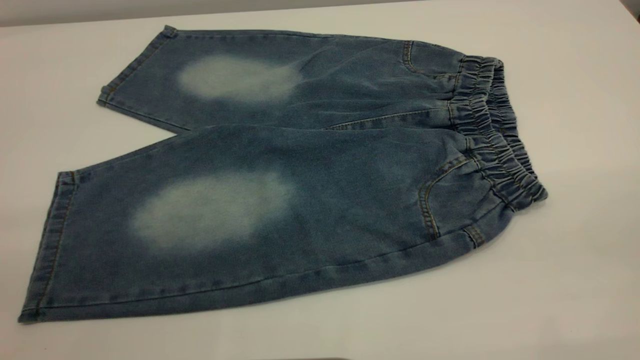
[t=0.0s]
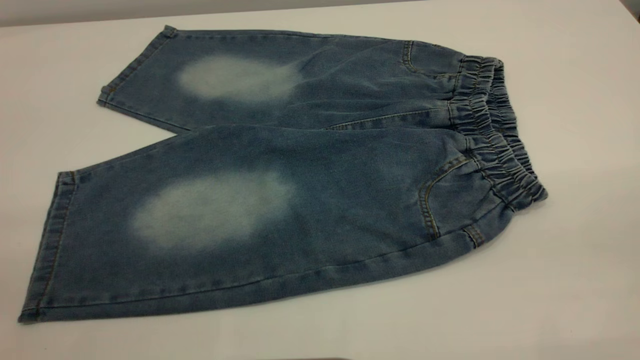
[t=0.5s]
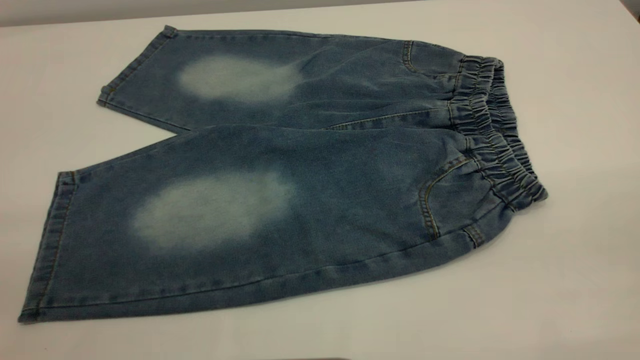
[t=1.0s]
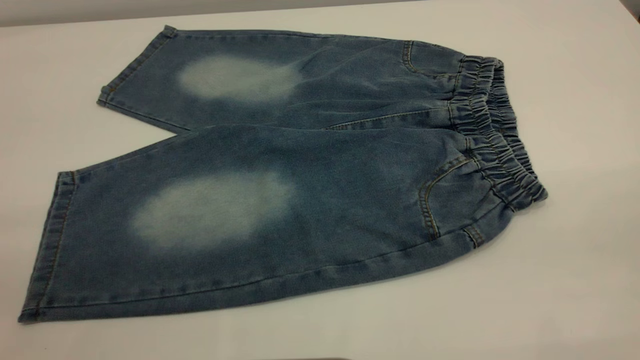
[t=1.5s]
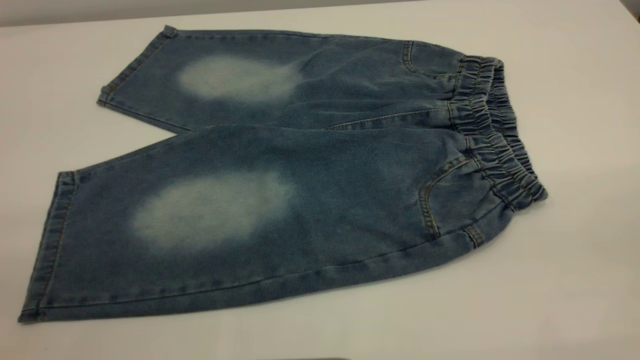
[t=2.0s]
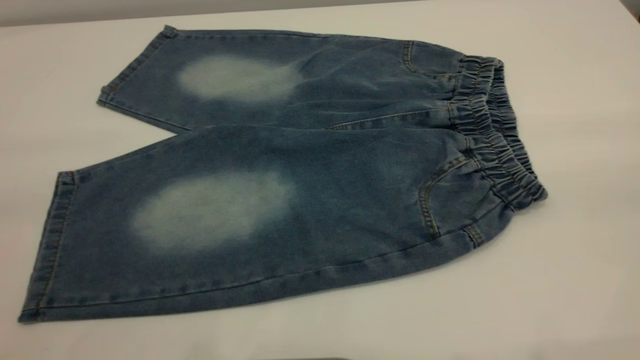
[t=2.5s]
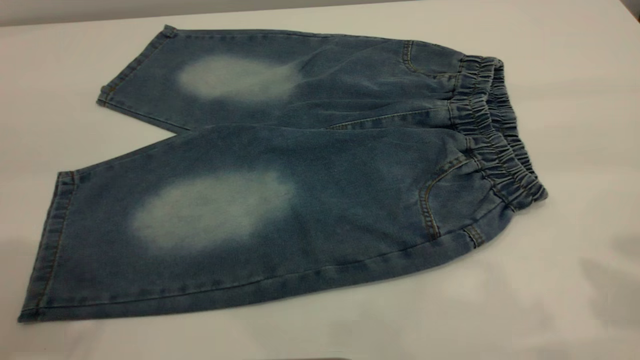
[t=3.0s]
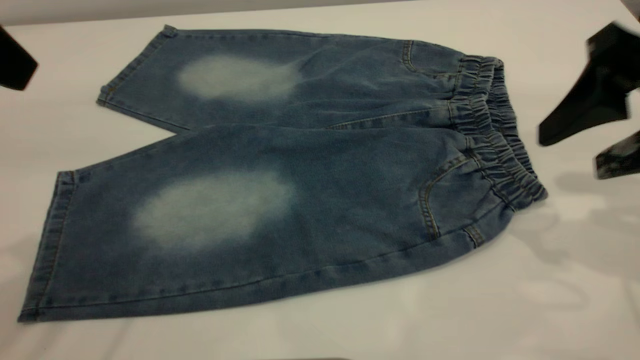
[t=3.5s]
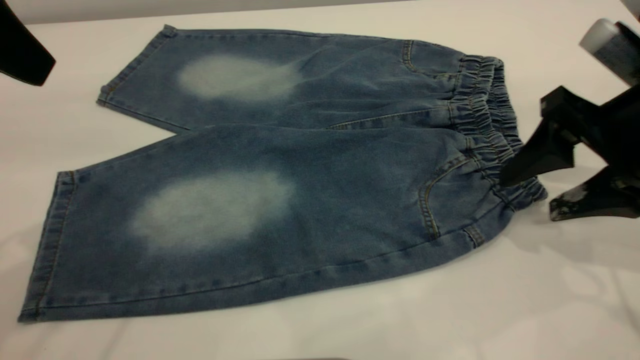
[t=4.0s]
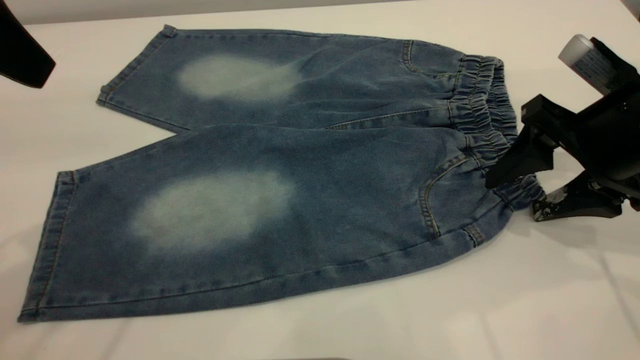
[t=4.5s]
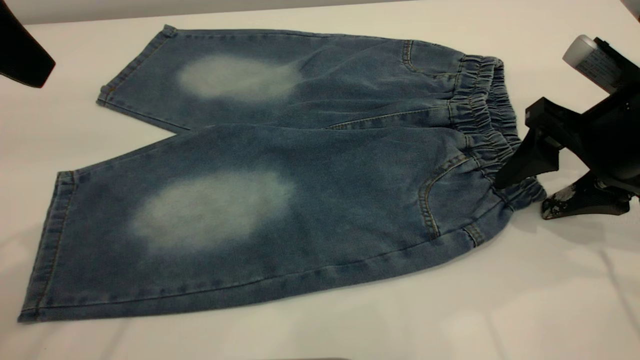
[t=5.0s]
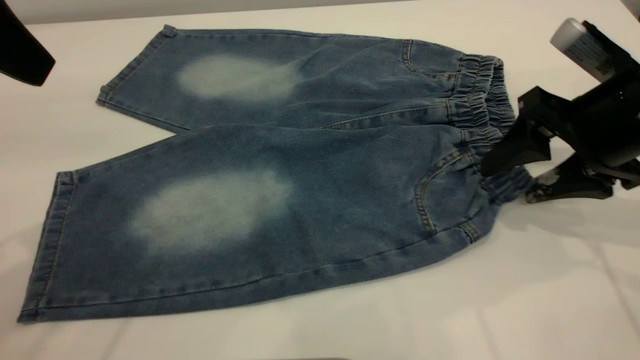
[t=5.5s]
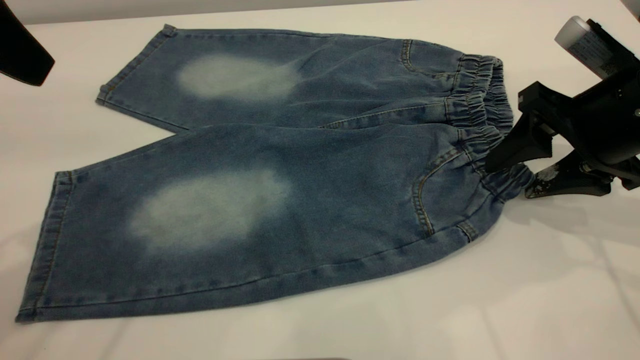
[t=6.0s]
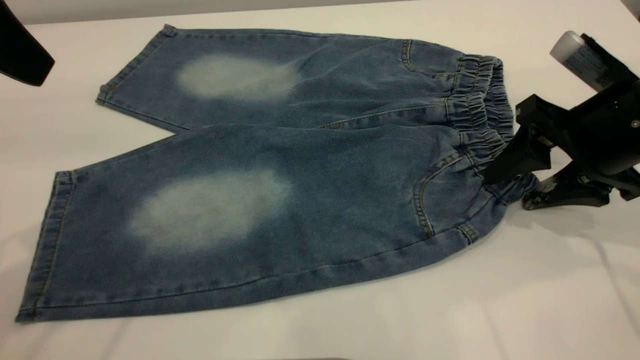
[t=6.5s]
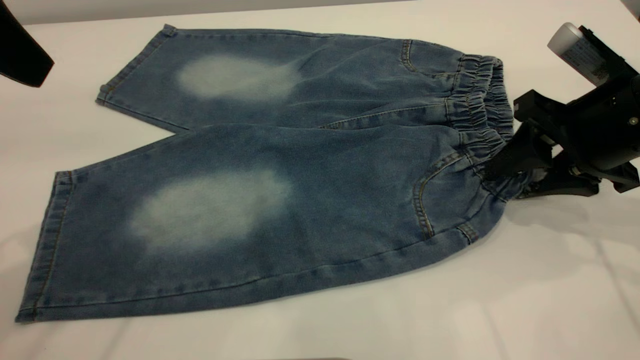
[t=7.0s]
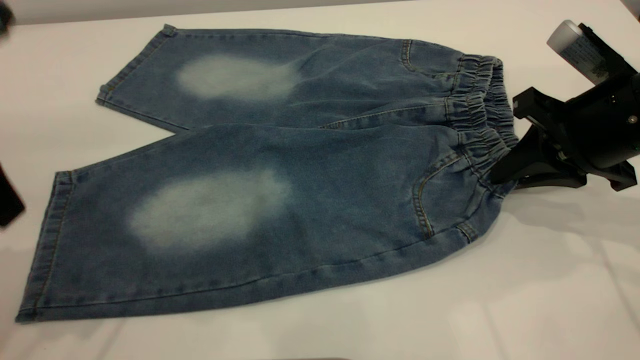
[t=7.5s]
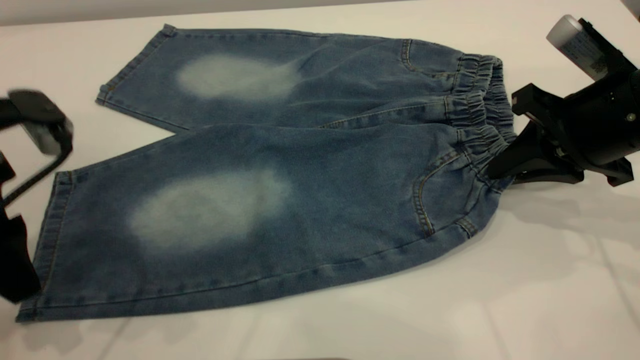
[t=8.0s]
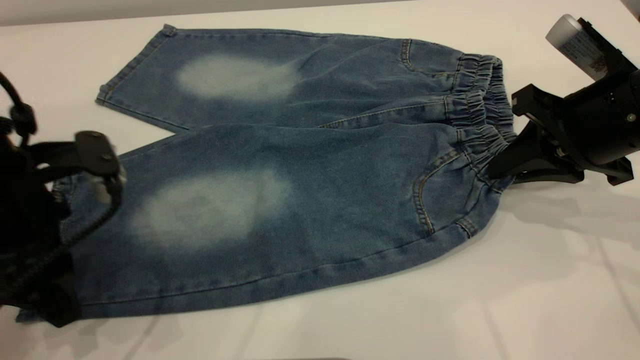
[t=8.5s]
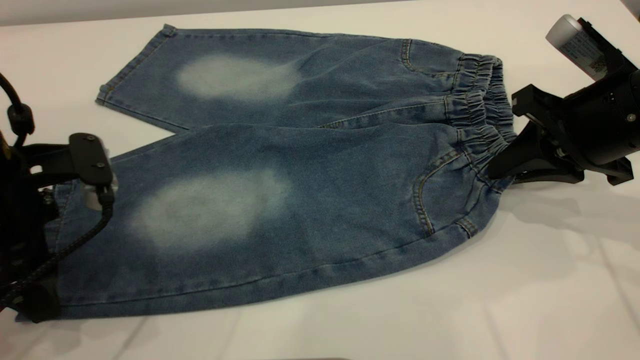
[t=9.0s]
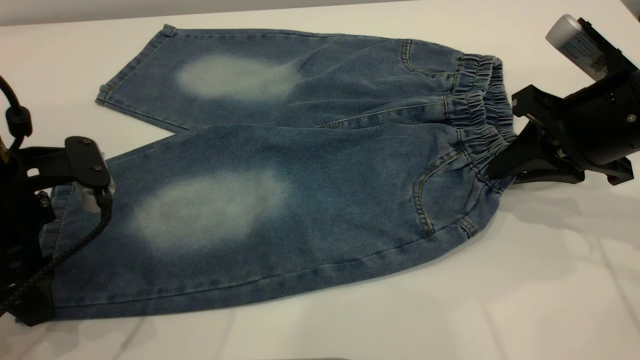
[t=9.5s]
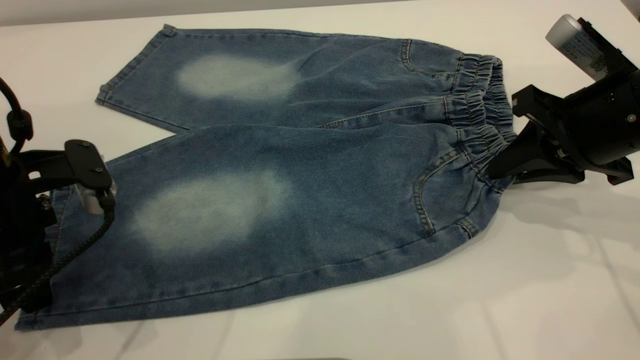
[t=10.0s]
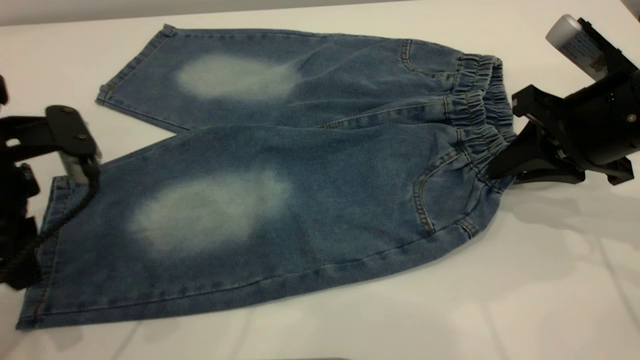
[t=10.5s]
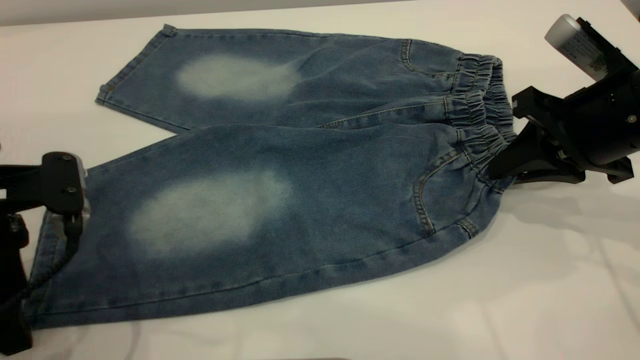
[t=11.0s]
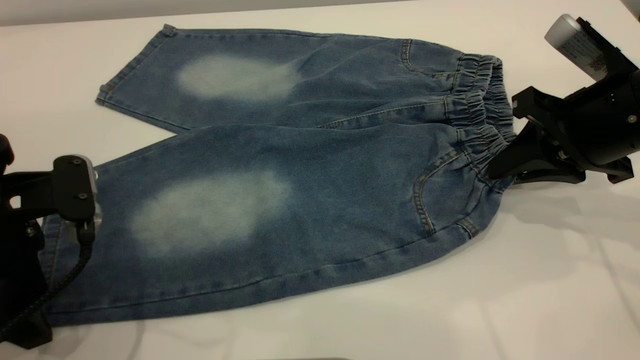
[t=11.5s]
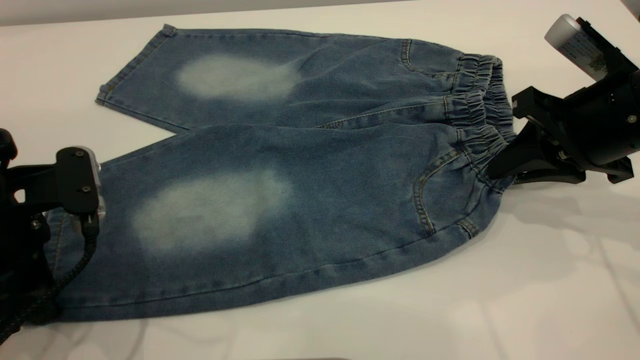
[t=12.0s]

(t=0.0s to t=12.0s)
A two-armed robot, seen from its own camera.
t=0.0s - t=2.0s: Both grippers stay about where they are.
t=2.0s - t=4.0s: The right gripper moves forward and downward, approximately 30 cm; the left gripper moves forward, some 25 cm.
t=4.0s - t=6.0s: The grippers stay close to where they were, moving slightly.
t=6.0s - t=8.0s: The left gripper moves downward, about 15 cm; the right gripper closes up.
t=8.0s - t=10.0s: The left gripper closes up.
t=10.0s - t=12.0s: The left gripper opens and closes again.

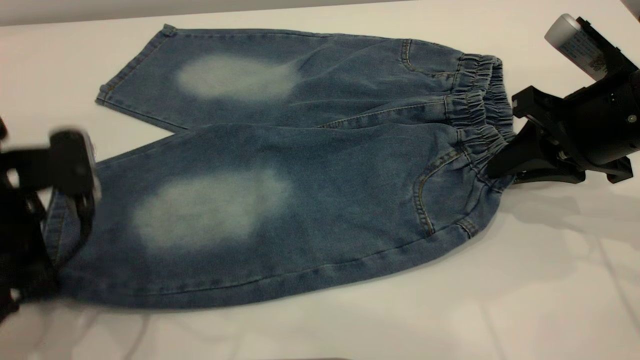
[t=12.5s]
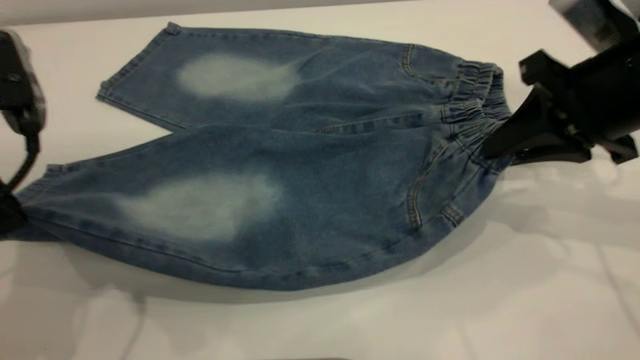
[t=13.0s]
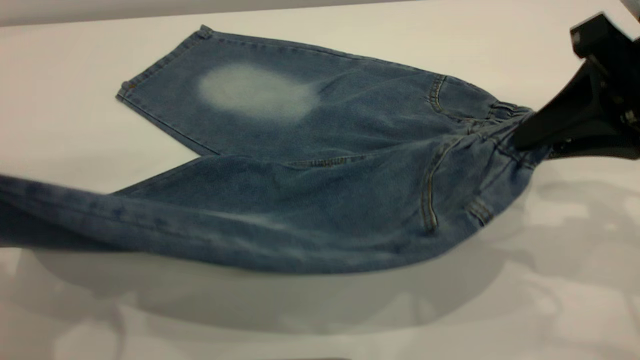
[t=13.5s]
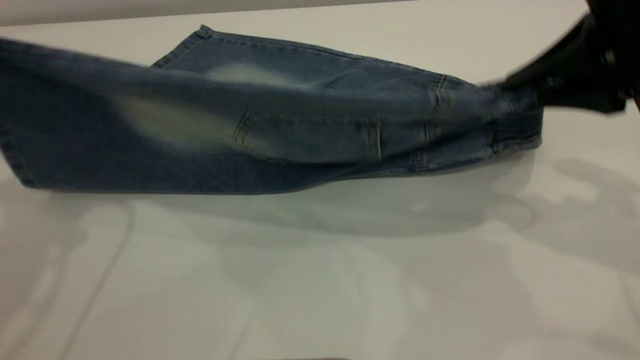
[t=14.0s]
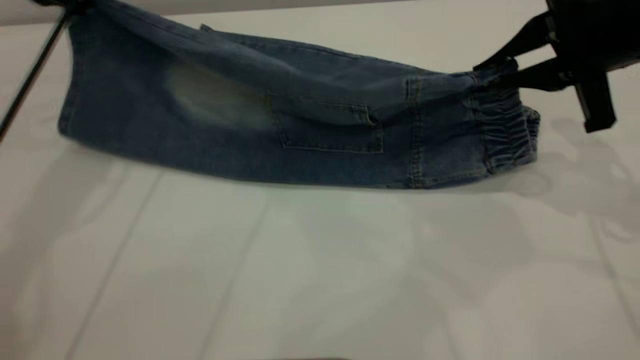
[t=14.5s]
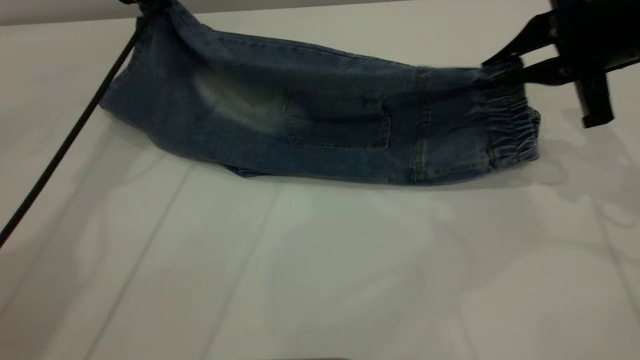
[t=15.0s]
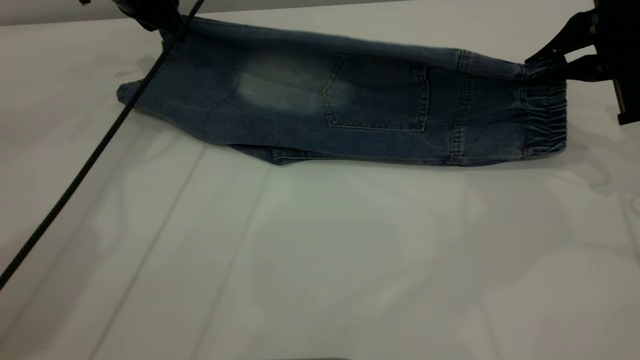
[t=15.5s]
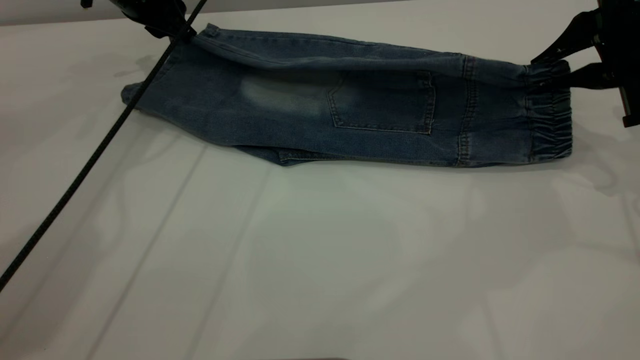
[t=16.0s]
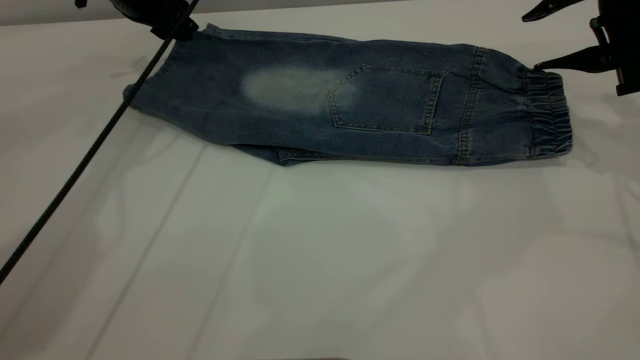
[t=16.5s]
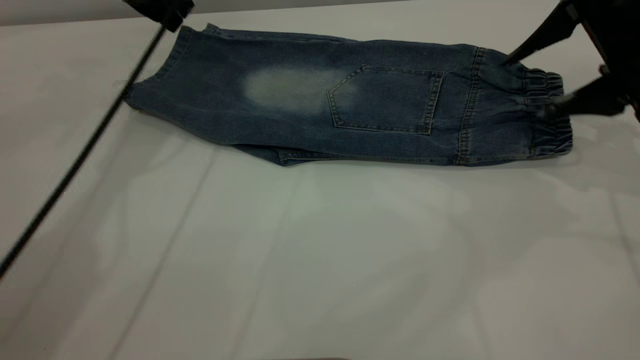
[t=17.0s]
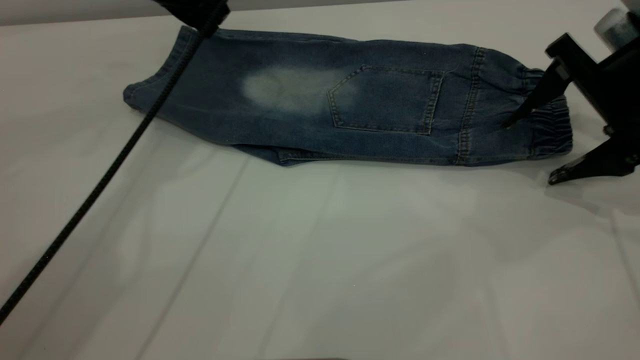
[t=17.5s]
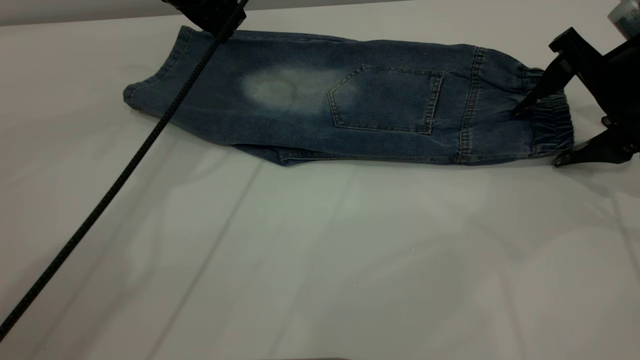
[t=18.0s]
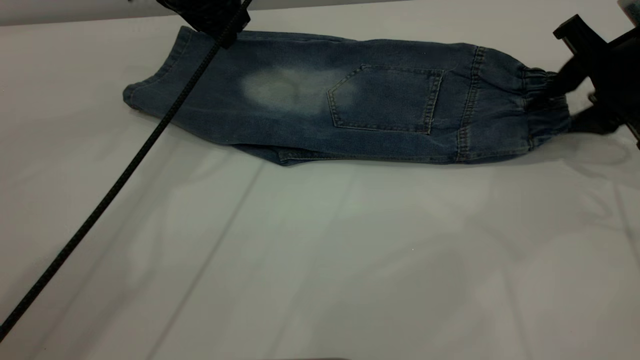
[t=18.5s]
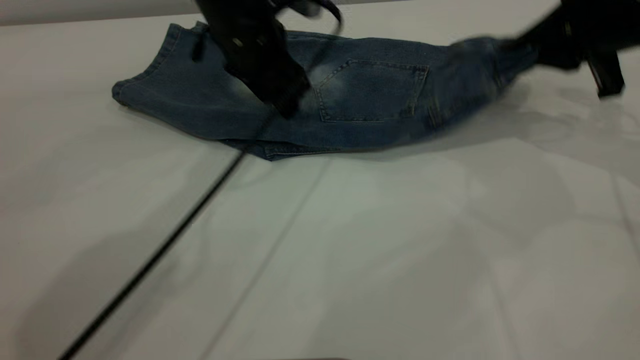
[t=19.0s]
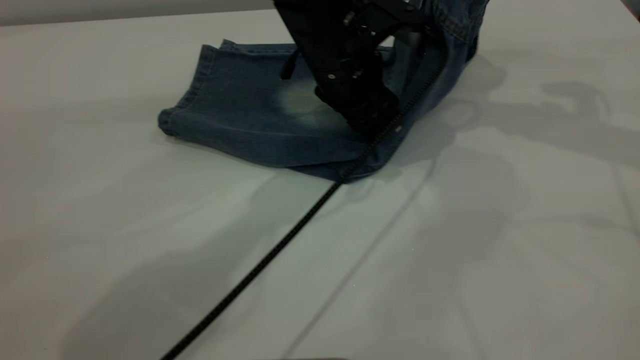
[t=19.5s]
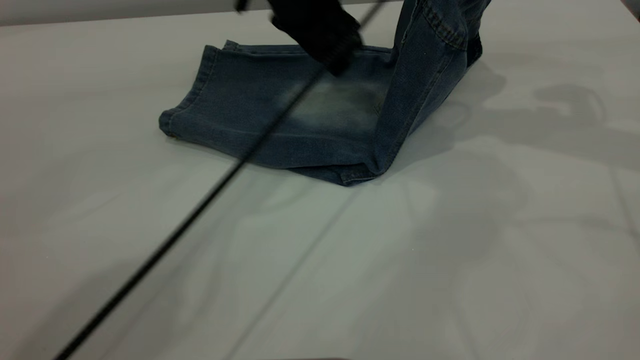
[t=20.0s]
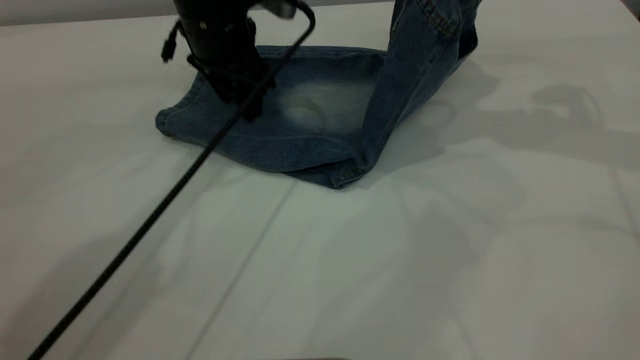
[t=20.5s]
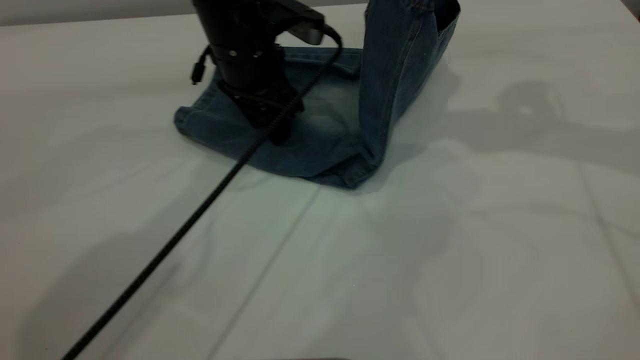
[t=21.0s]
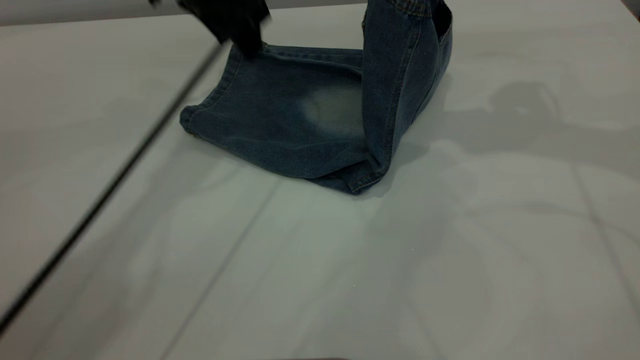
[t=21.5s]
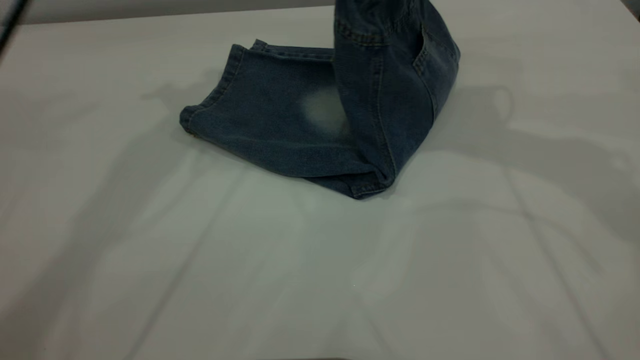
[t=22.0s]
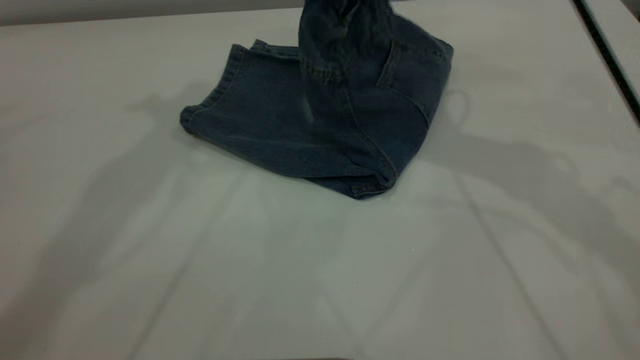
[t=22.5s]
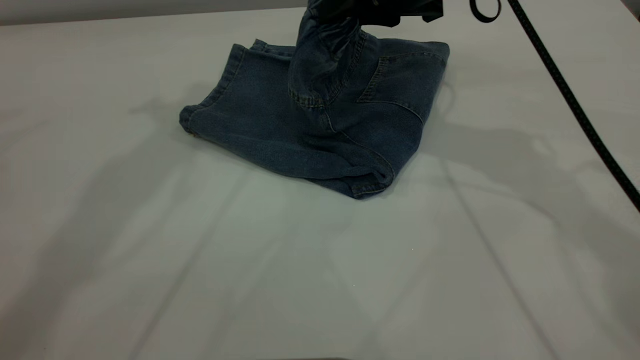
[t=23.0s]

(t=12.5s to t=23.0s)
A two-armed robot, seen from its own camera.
Step, t=12.5s - t=16.5s: Fold the bottom of the pants upward.
t=12.5s - t=14.5s: The right gripper goes approximately 5 cm upward. The left gripper moves forward and upward, approximately 25 cm.
t=14.5s - t=16.5s: The left gripper shifts about 10 cm forward and downward, and opens, while the right gripper changes place by approximately 5 cm, and opens.
t=16.5s - t=19.0s: The right gripper closes its fingers. The left gripper goes some 15 cm to the right and backward.
t=19.0s - t=21.0s: The right gripper is displaced upward and to the left by some 10 cm; the left gripper moves approximately 10 cm to the right and comes back.
t=21.0s - t=23.0s: The left gripper moves upward, some 30 cm, while the right gripper moves to the left and downward, roughly 15 cm.
